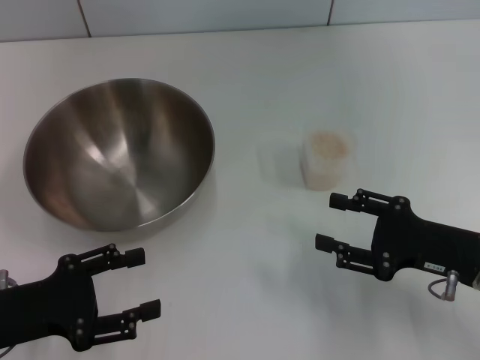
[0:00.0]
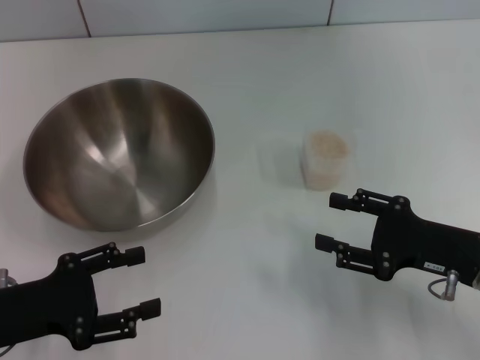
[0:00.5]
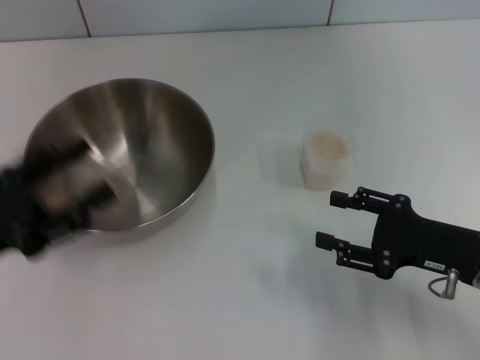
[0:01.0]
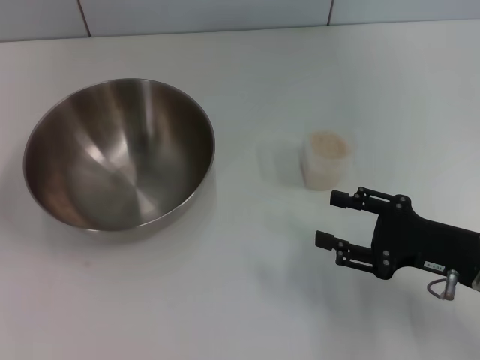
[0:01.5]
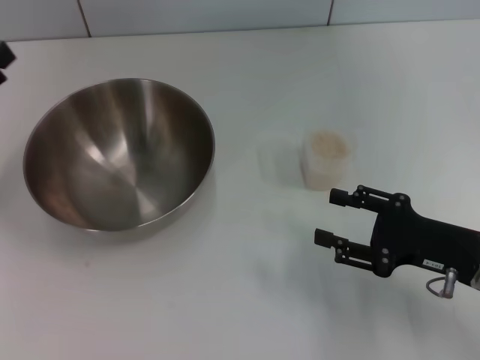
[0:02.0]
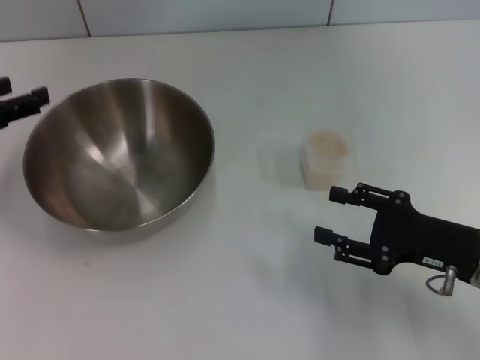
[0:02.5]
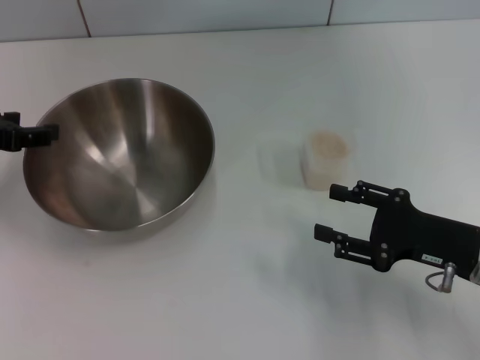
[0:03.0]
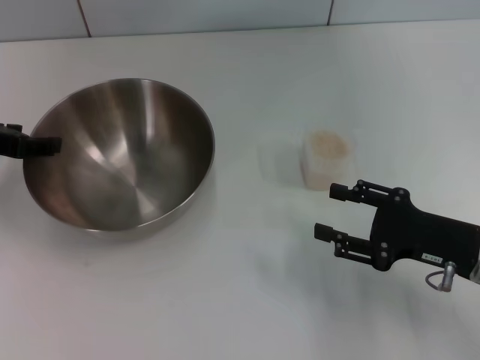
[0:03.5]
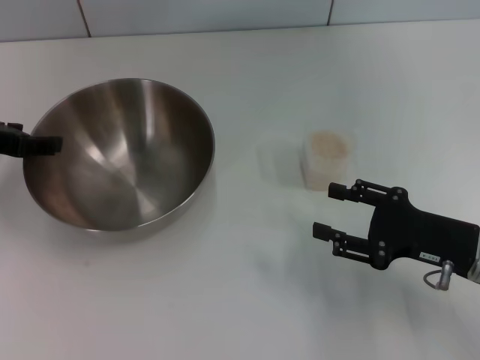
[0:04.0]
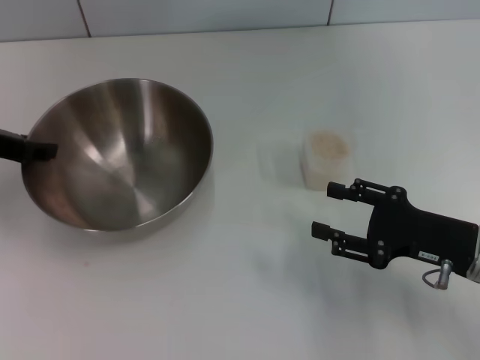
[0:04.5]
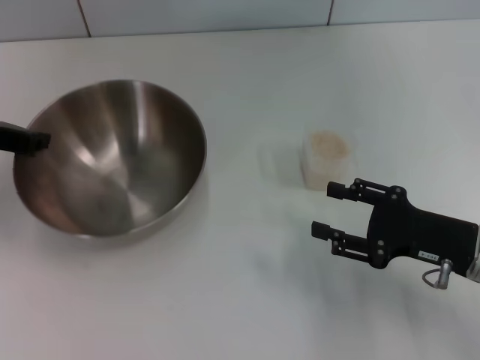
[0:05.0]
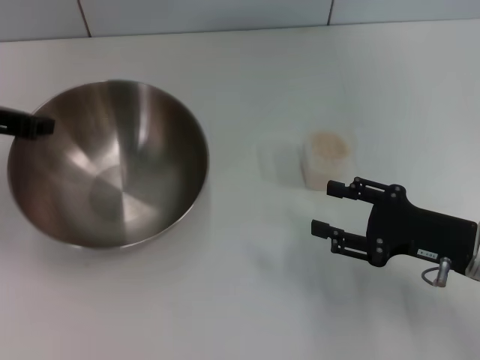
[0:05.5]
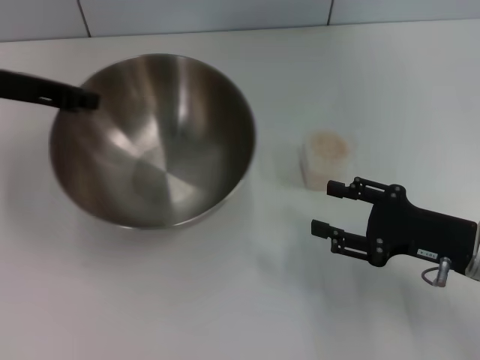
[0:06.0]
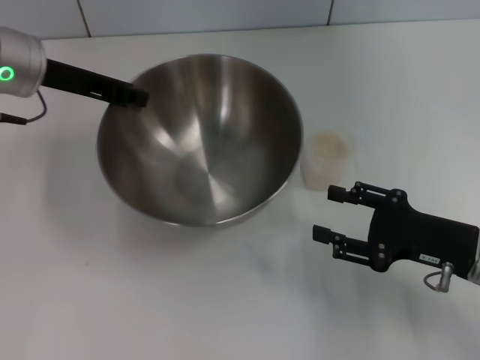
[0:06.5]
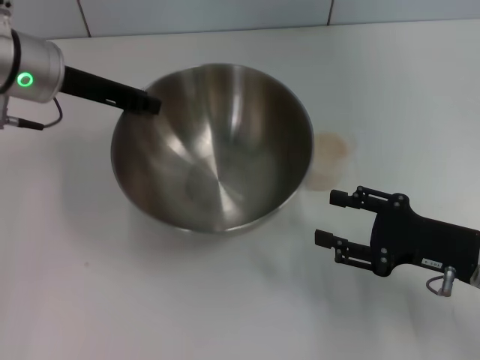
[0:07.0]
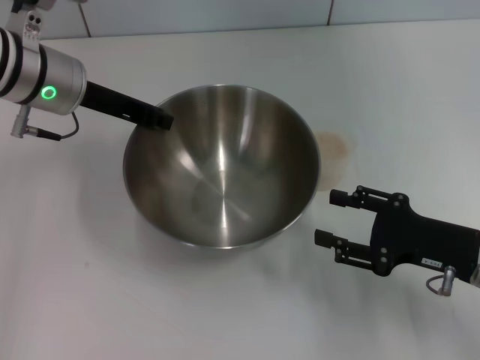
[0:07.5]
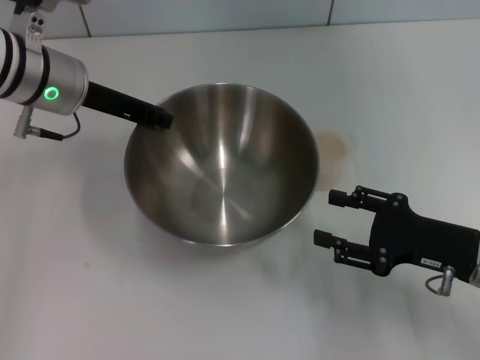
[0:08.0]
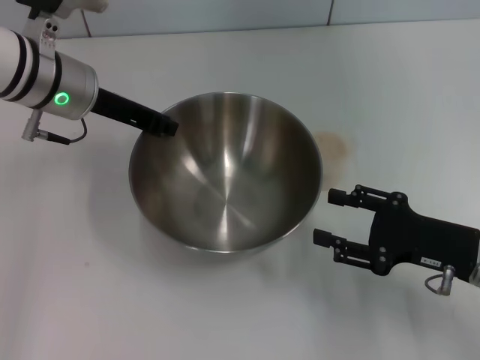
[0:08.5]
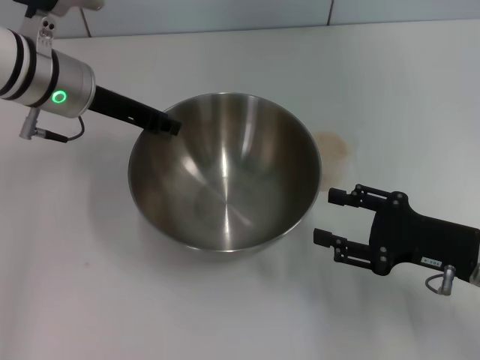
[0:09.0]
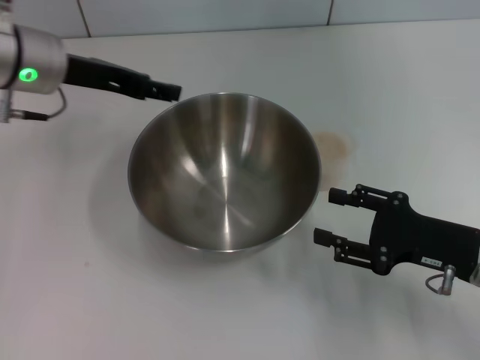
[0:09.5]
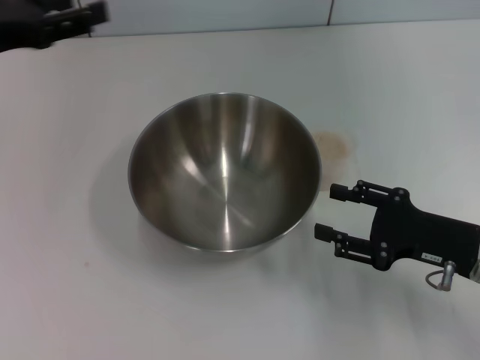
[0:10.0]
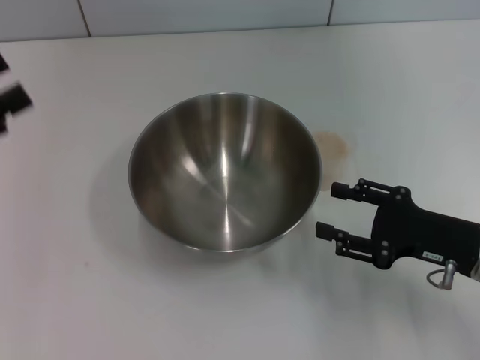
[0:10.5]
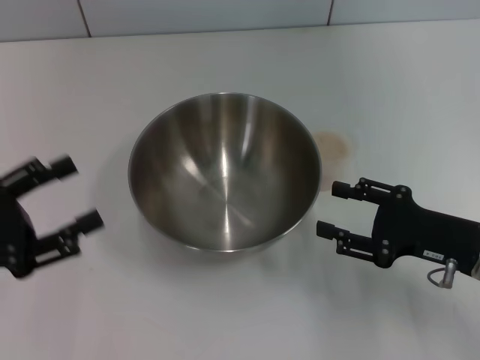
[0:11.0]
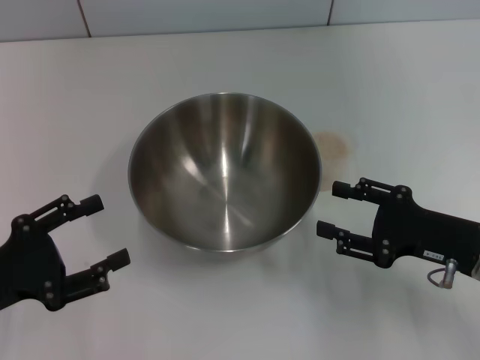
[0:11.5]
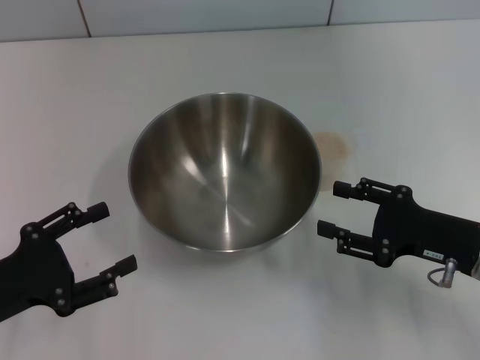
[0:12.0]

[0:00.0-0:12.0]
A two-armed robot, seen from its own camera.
Task of the whole recording: Place the bowl in the middle of the table with one hand and pour the rice from the grain cup into it with the other hand.
Step, 0:00.0 to 0:05.5: Pick up the bowl with the left gripper.
Step, 0:06.0 to 0:09.0: Place the bowl in the center of view with the left gripper.
0:00.0 to 0:02.0: The left gripper goes roughly 10 cm forward, upward and to the left.
0:02.0 to 0:04.0: The left gripper shifts some 5 cm forward.
0:04.0 to 0:06.0: The left gripper ends up about 5 cm from where it was, and closes up.
0:06.0 to 0:08.0: The left gripper heads to the right, covering roughly 5 cm.
0:08.0 to 0:10.0: The left gripper is displaced to the left and backward by approximately 10 cm, and opens.
0:10.0 to 0:12.0: The left gripper shifts about 20 cm backward and downward.

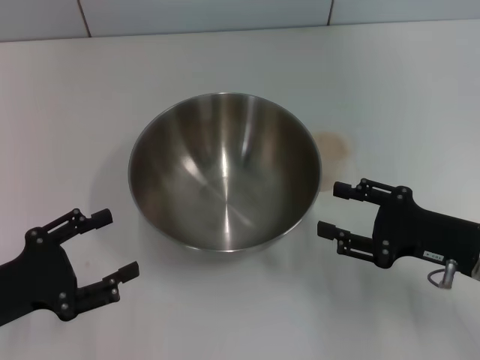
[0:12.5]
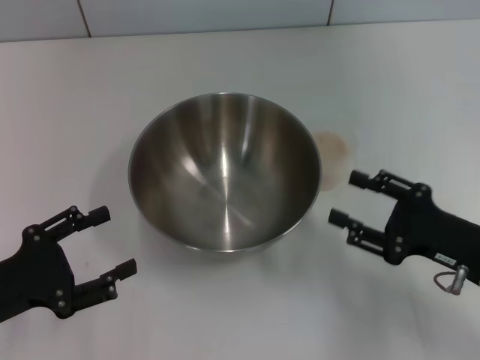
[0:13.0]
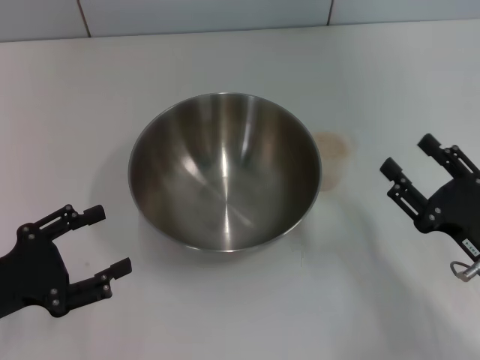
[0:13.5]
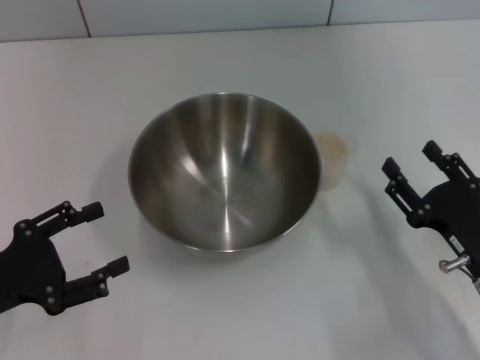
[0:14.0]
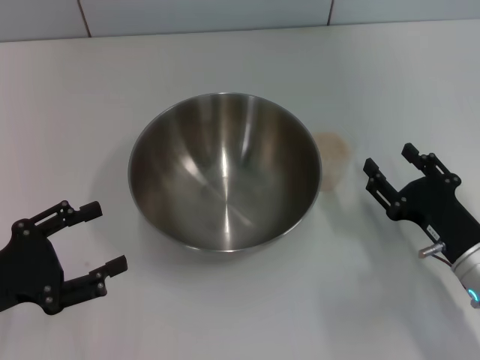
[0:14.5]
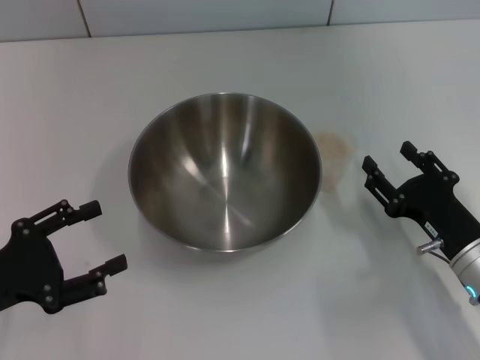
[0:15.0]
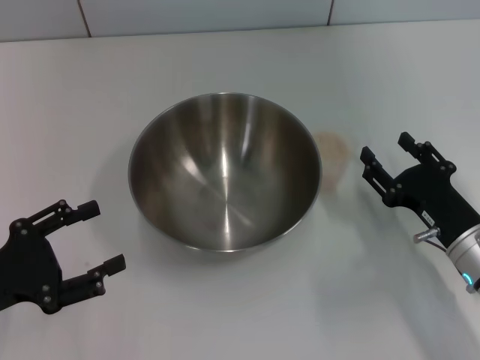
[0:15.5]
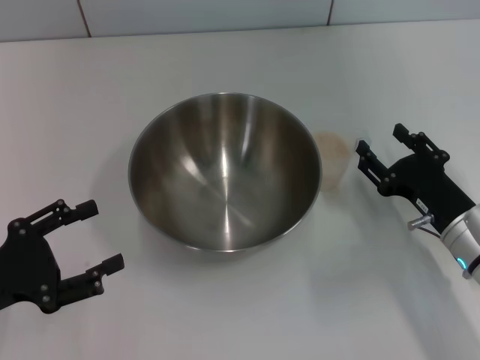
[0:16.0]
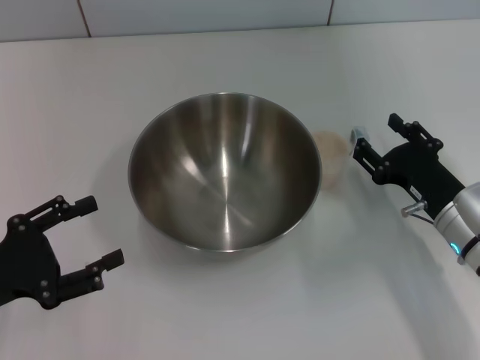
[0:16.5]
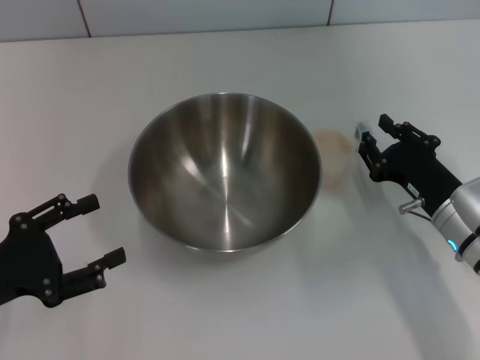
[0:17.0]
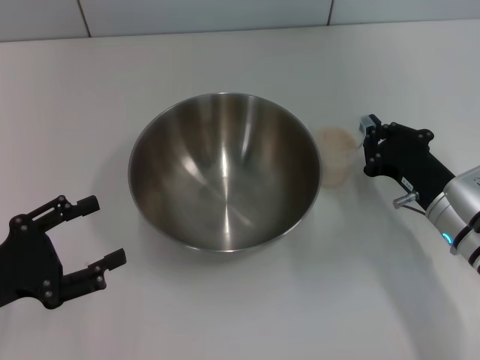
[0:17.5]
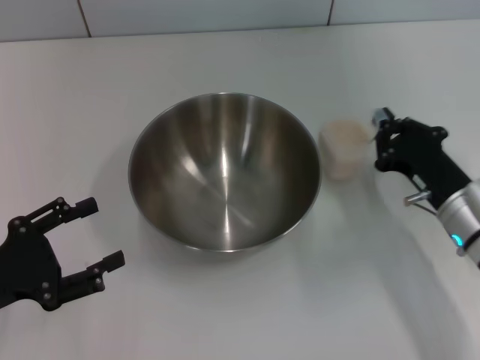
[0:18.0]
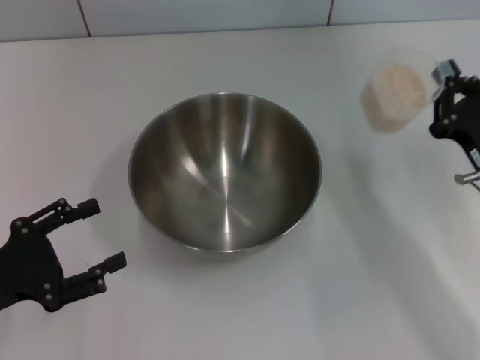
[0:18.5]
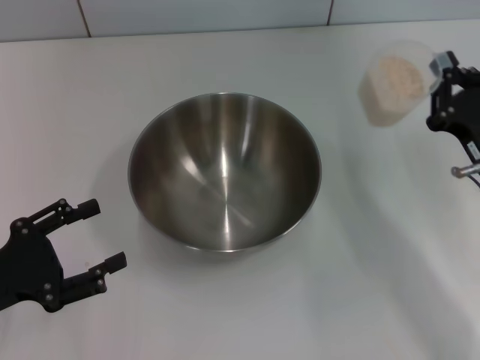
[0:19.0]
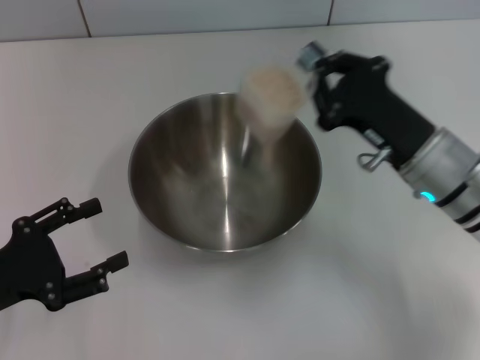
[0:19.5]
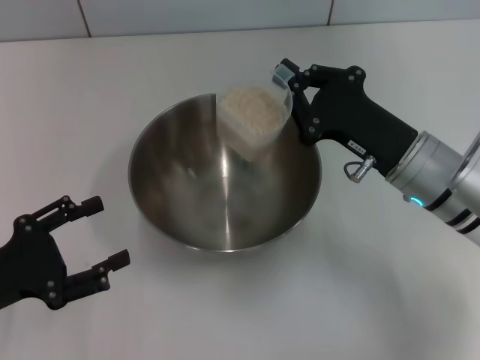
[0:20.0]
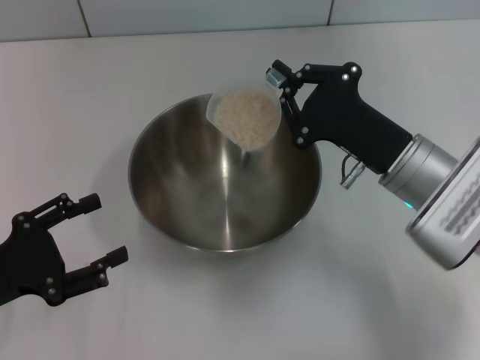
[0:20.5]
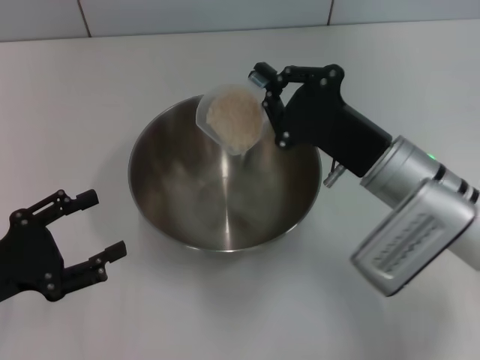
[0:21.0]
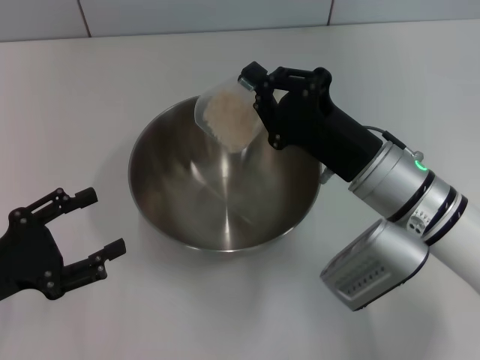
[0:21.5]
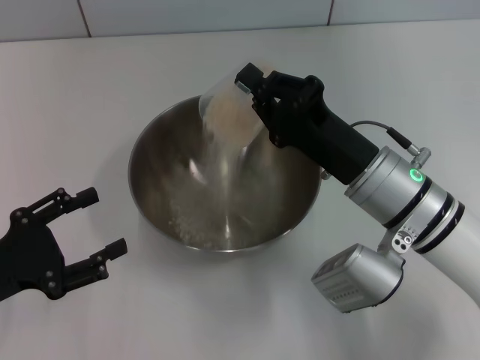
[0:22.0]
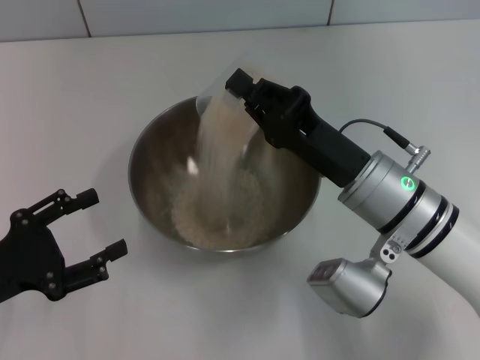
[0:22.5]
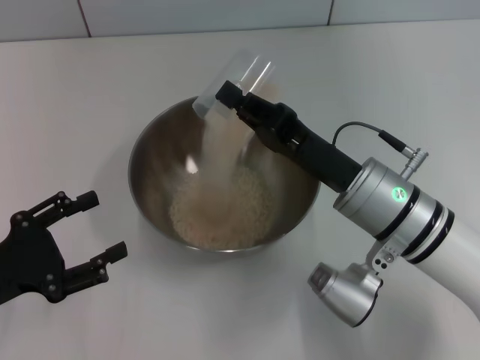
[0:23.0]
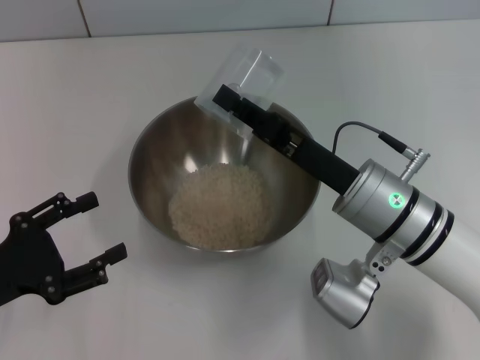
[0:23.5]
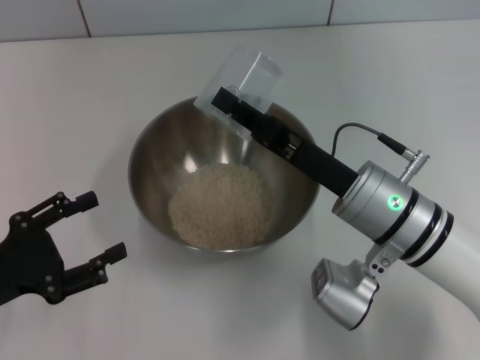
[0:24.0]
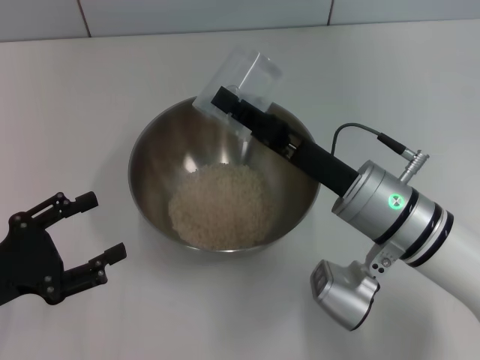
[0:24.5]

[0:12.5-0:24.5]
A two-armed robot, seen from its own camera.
Task of the whole recording: Place the bowl in the middle of the table with one hand and pour the rice from the grain cup into it with the other hand.
Step, 0:12.5 to 0:18.0: Pick up the cup with rice in it with the right gripper.
0:12.5 to 0:14.5: The right gripper shifts by about 5 cm.
0:14.5 to 0:16.5: The right gripper shifts some 5 cm forward.
0:16.5 to 0:18.5: The right gripper closes its fingers.
0:18.5 to 0:20.5: The right gripper goes about 10 cm to the left.
0:22.5 to 0:24.5: There are only small adjustments of the grippers.

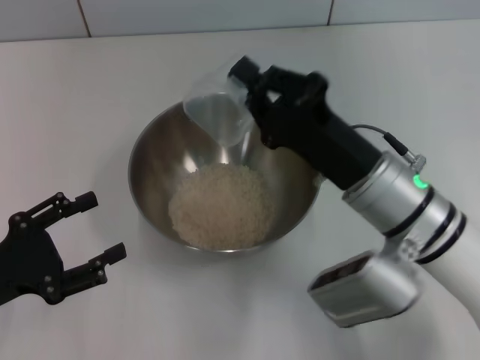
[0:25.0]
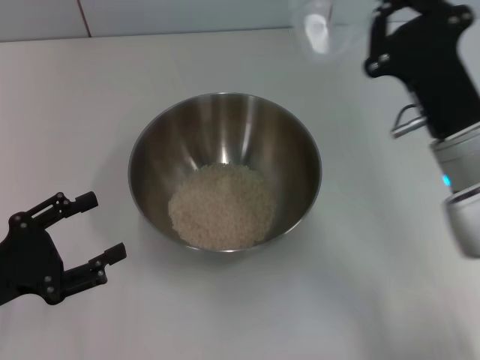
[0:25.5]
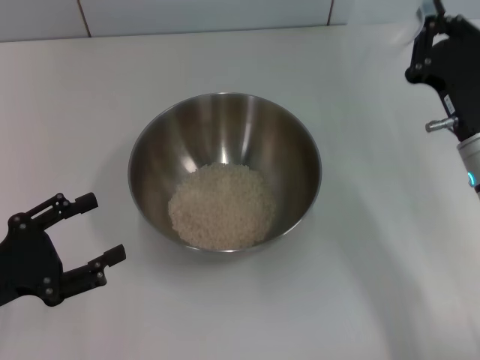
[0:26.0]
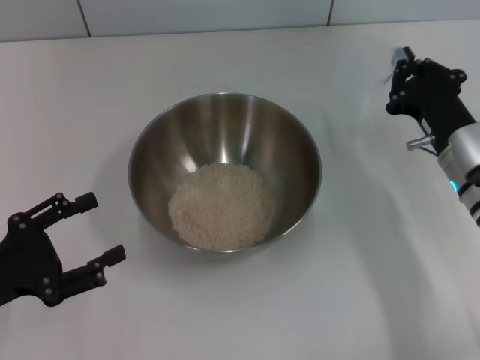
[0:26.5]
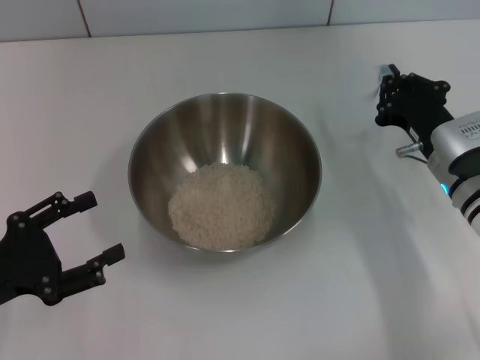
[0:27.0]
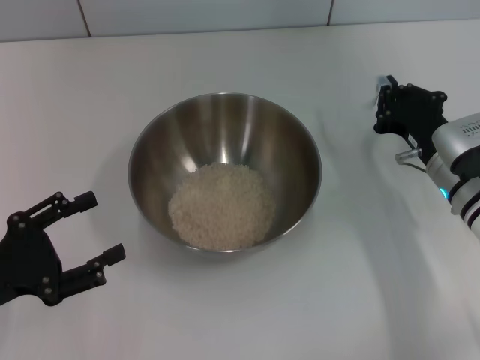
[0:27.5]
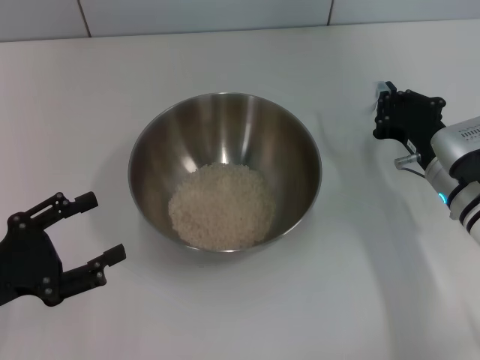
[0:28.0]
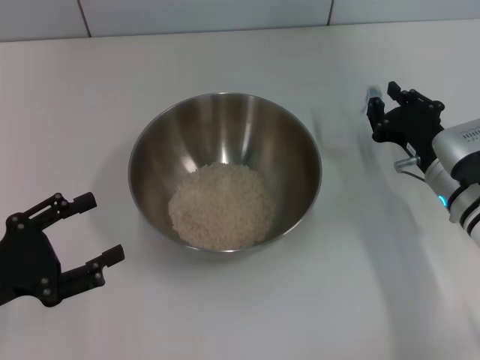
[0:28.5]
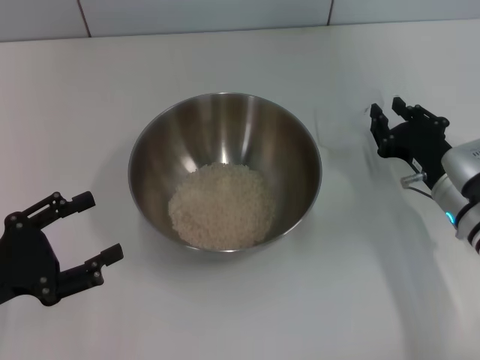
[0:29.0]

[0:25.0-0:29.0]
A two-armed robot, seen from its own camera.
Task of the whole recording: Place the bowl in the middle of the table with one hand and pour the rice from the grain cup into it with the other hand.
0:25.0 to 0:27.0: The right gripper goes about 10 cm to the right and forward.
0:27.0 to 0:29.0: The right gripper opens.
